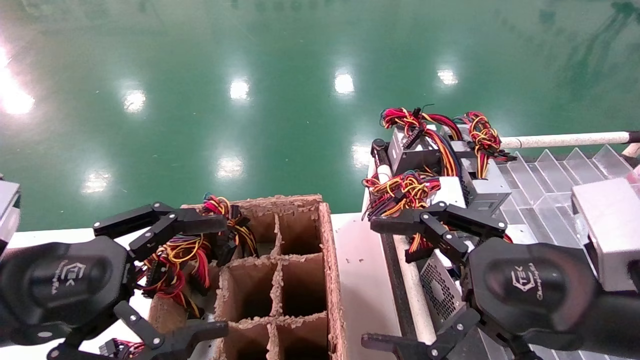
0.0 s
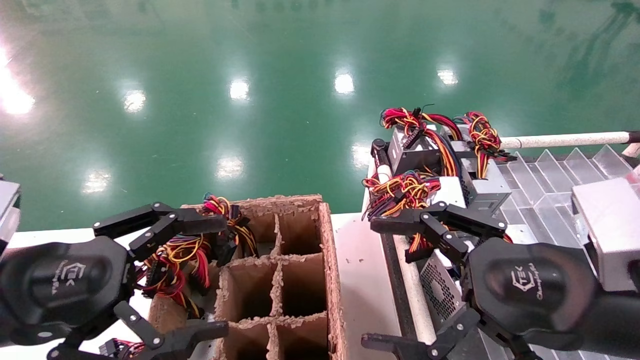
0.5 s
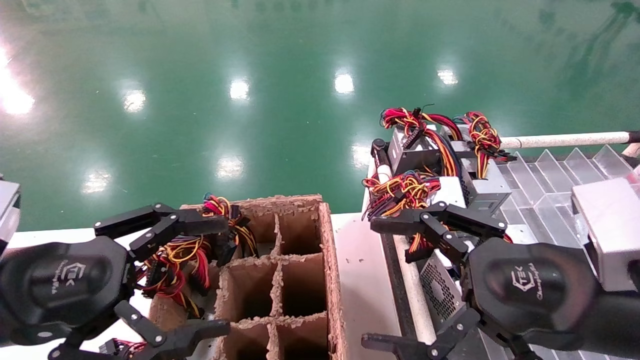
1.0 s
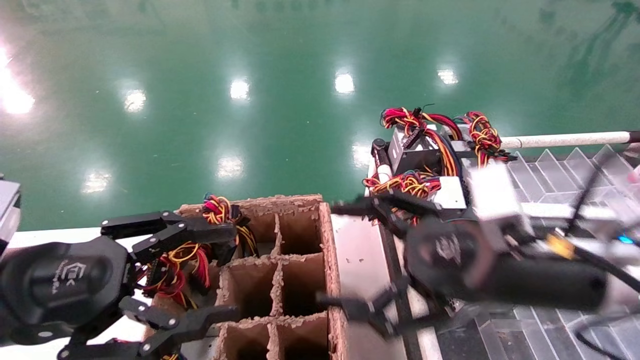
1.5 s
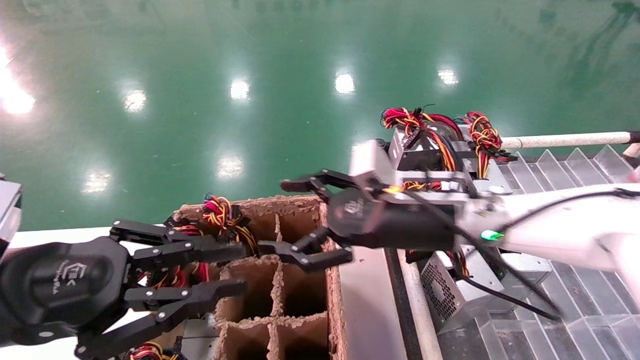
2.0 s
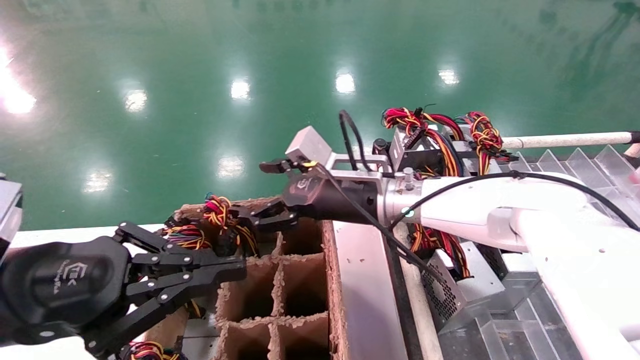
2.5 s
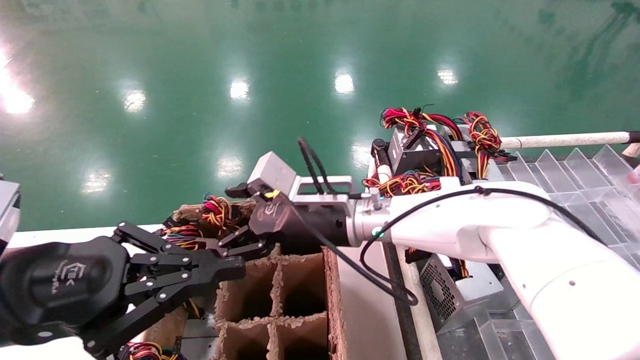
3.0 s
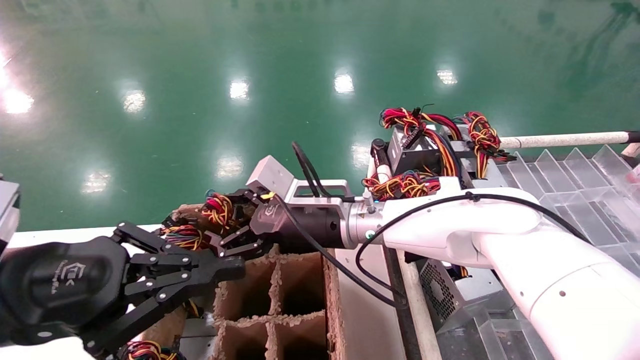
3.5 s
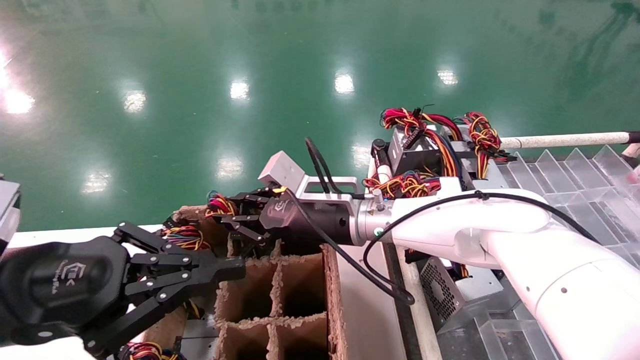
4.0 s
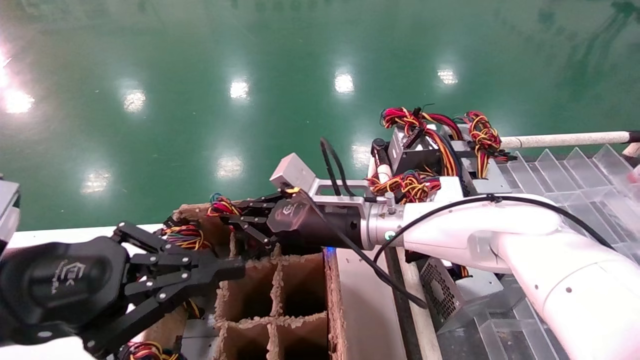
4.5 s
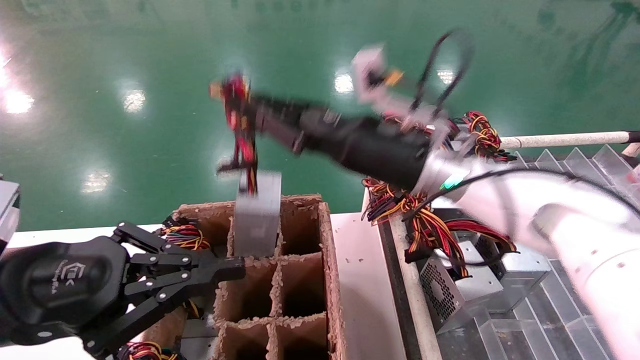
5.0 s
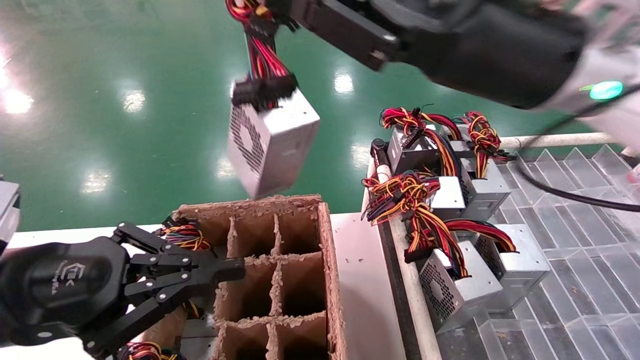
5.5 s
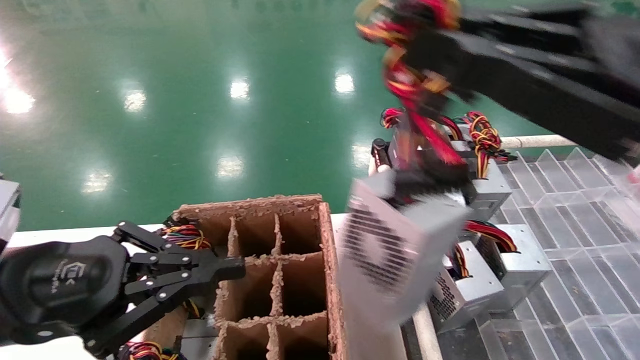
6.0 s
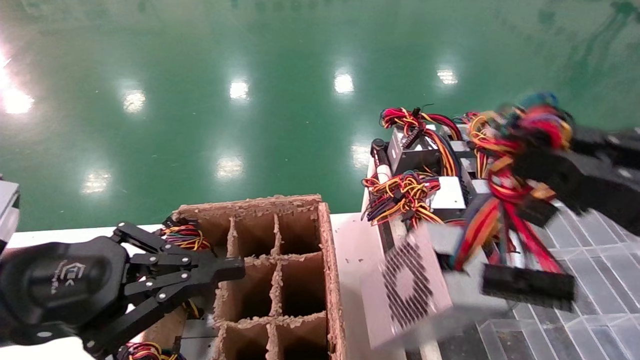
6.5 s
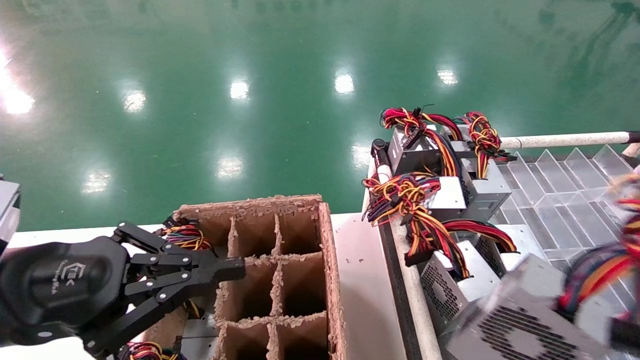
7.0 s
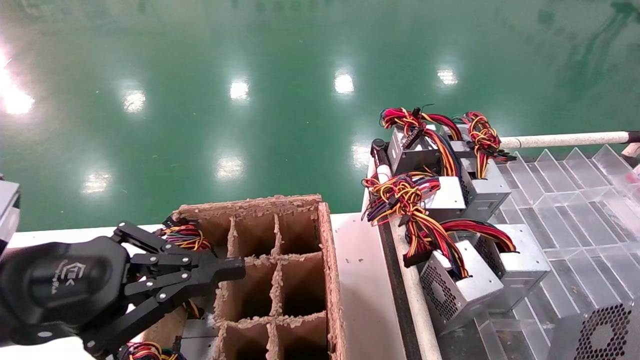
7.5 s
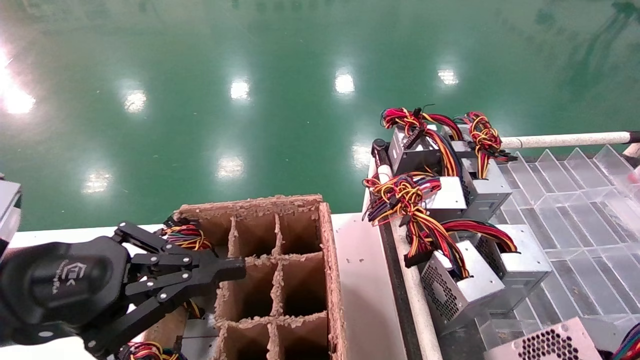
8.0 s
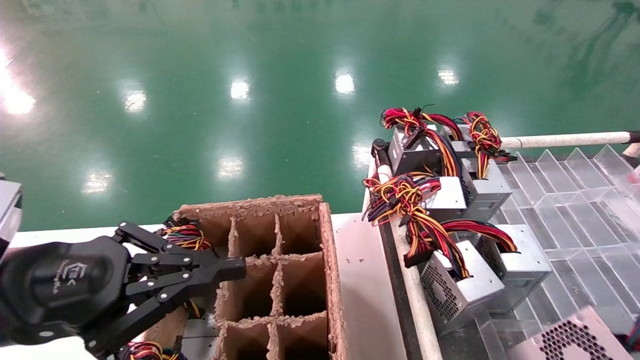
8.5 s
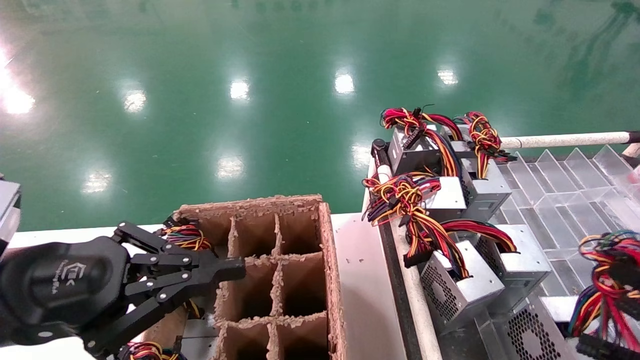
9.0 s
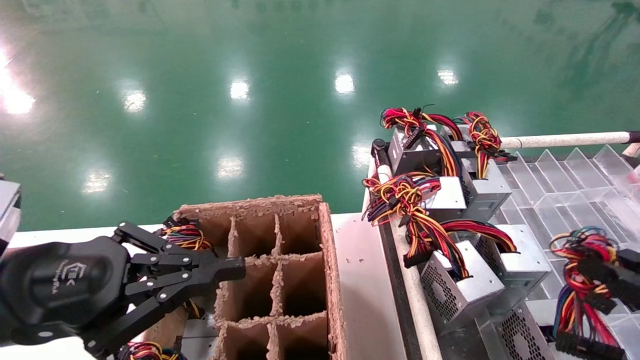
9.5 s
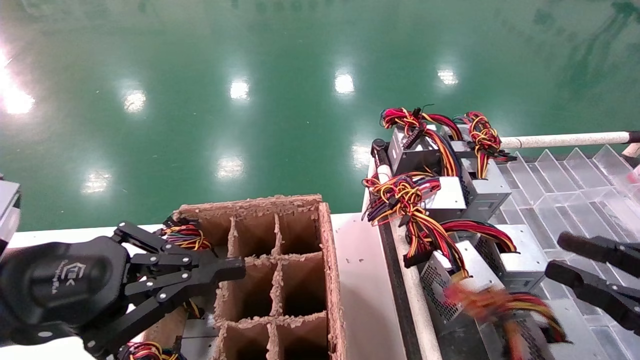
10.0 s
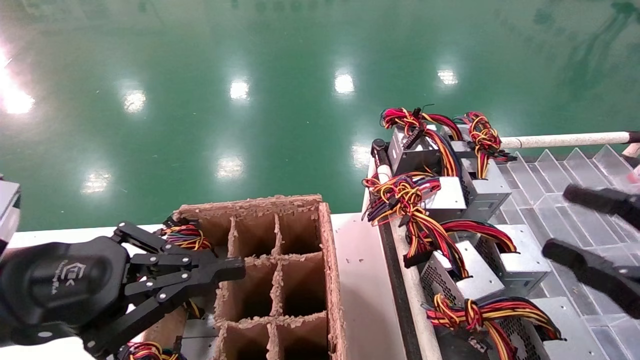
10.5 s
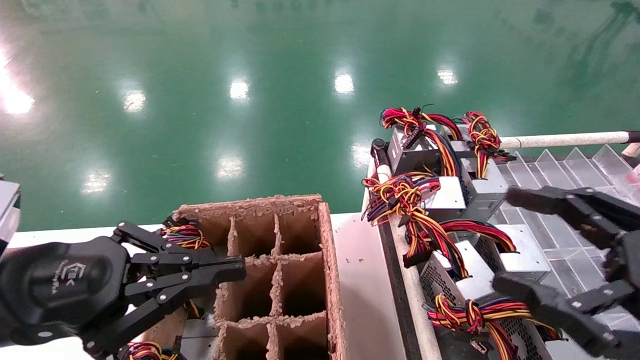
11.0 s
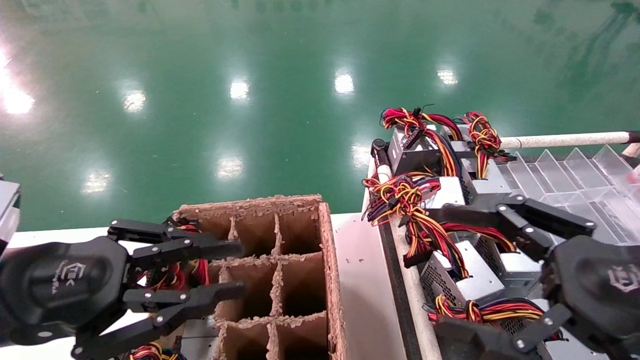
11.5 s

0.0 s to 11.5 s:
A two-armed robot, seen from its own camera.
Step, 1.5 to 4.0 s: Grab the main unit power supply from the containment box.
Step, 4.5 to 9.5 s: Place the main unit power supply in the designated area.
0.0 to 2.0 s: The left gripper closes its fingers. The right gripper moves forward and to the left, some 20 cm.
2.0 to 4.0 s: The right gripper heads to the left, covering some 10 cm, and closes.
4.0 to 6.0 s: The right gripper travels to the right, backward and upward by roughly 40 cm.
6.0 to 7.5 s: The right gripper is displaced backward, to the right and downward by about 25 cm.
7.5 to 9.5 s: The right gripper is displaced forward by roughly 10 cm.
9.5 to 11.5 s: The right gripper heads to the left and upward, covering about 15 cm, and opens its fingers.

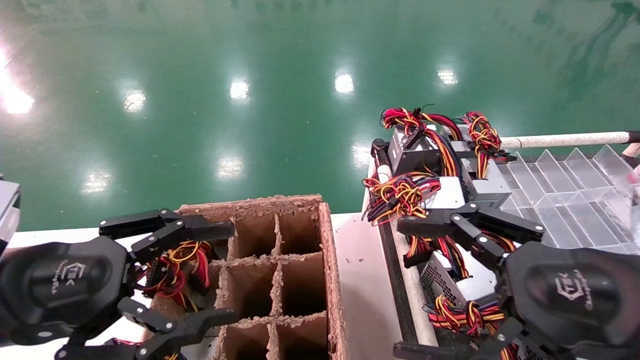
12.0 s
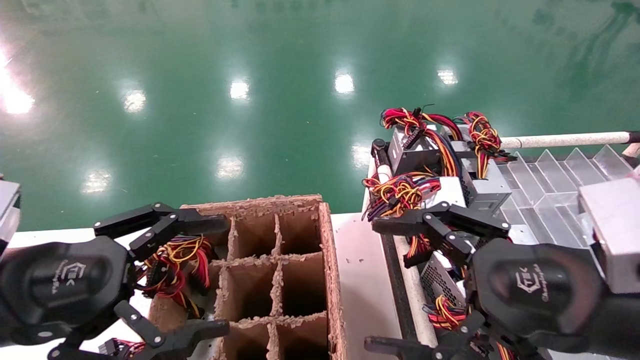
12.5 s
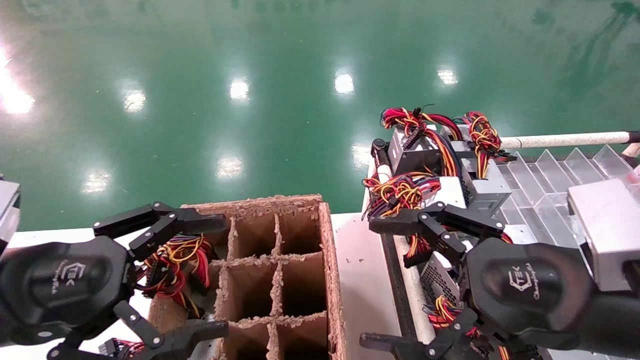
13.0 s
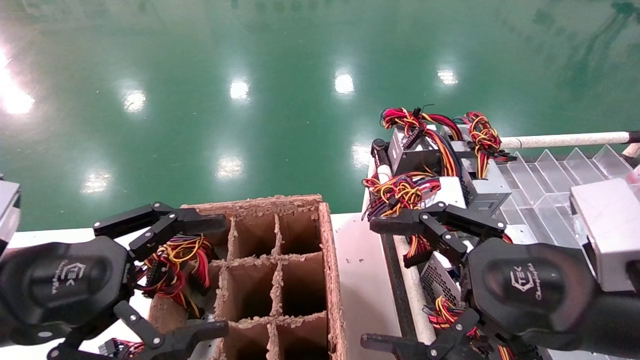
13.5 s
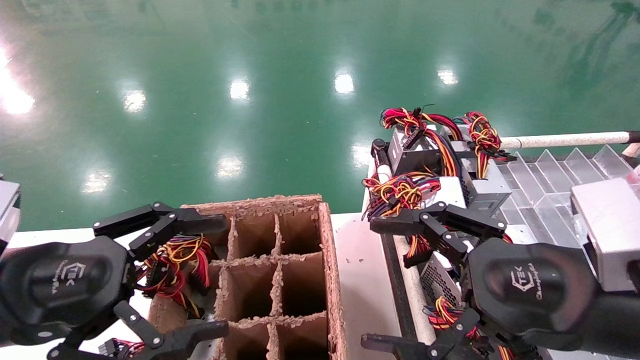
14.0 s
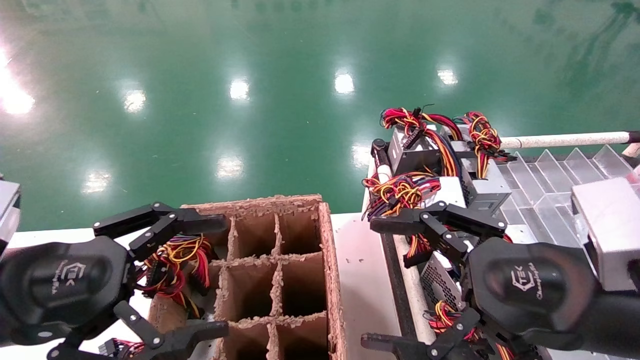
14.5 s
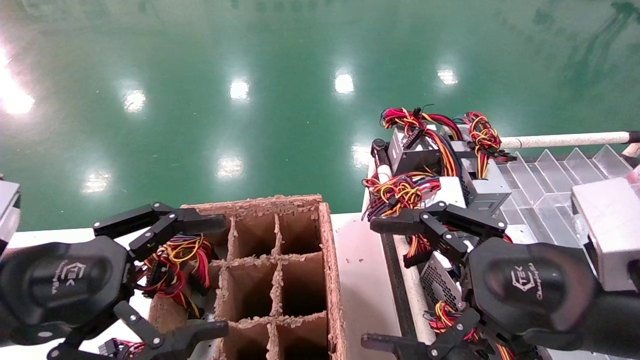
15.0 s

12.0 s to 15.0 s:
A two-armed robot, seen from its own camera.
12.0 to 13.5 s: The left gripper opens.
13.5 to 15.0 s: Both grippers stay about where they are.
